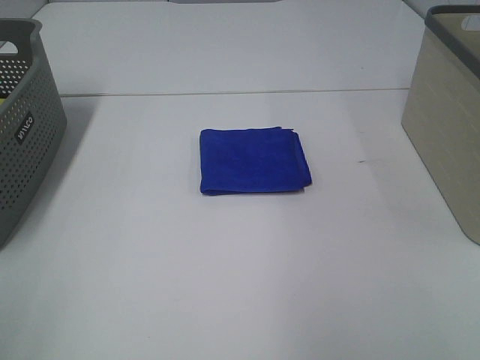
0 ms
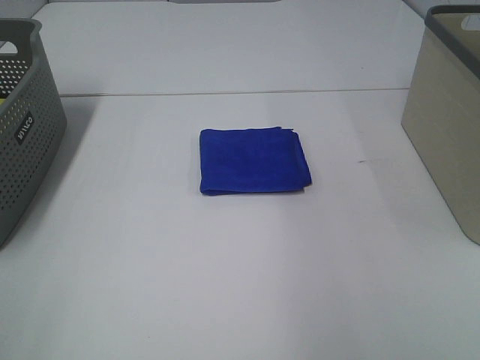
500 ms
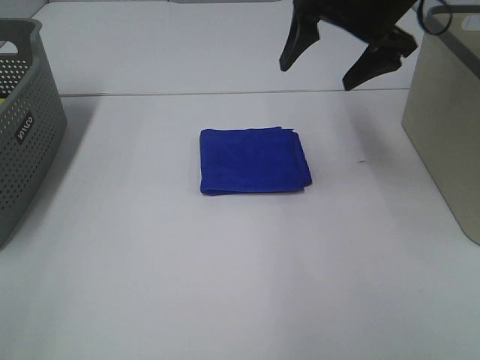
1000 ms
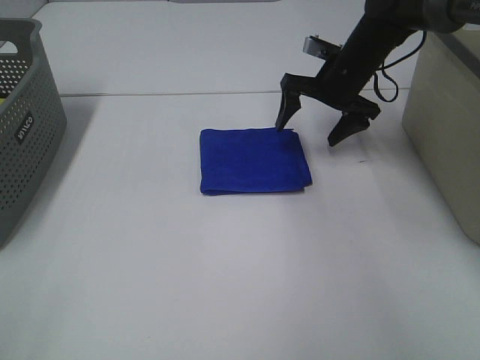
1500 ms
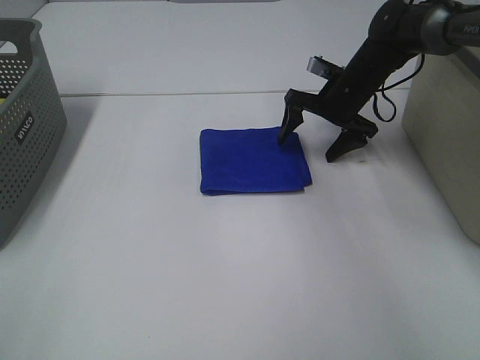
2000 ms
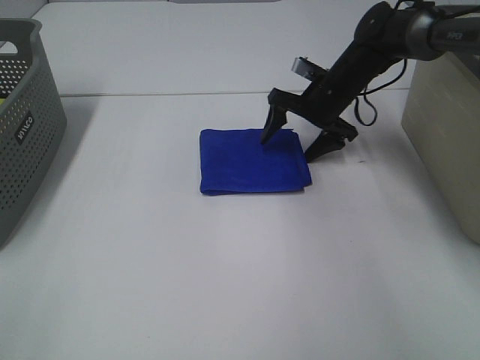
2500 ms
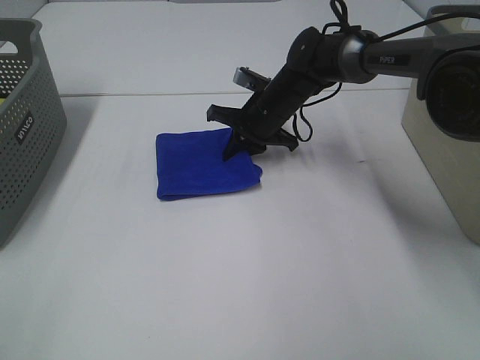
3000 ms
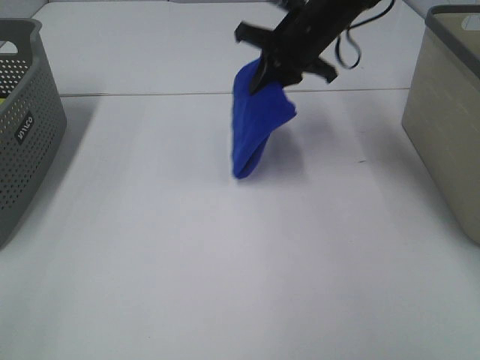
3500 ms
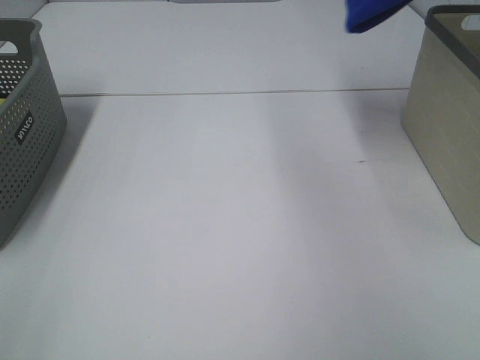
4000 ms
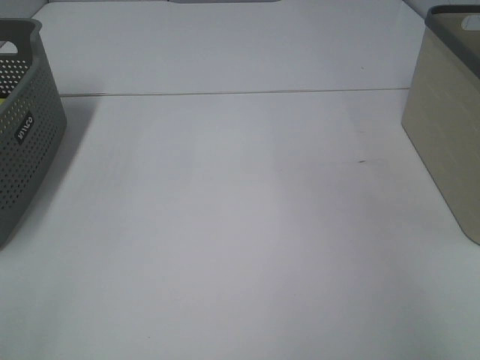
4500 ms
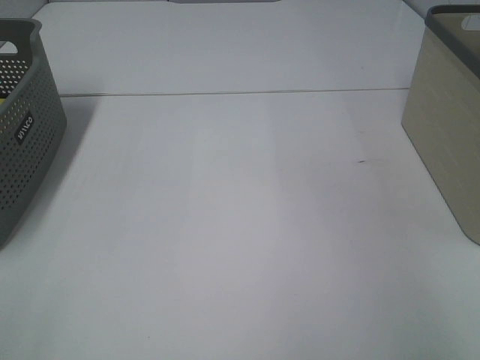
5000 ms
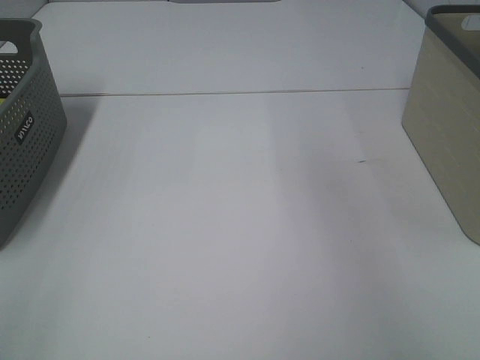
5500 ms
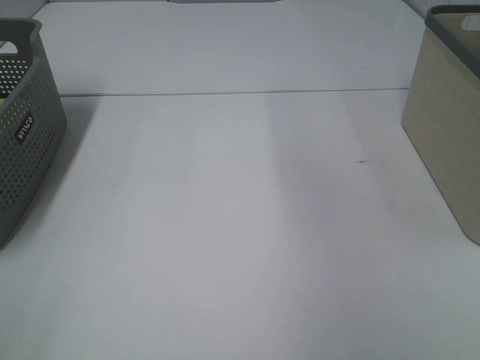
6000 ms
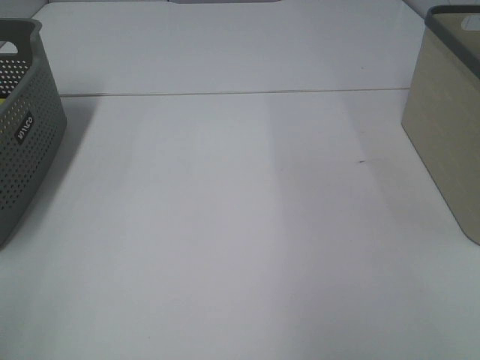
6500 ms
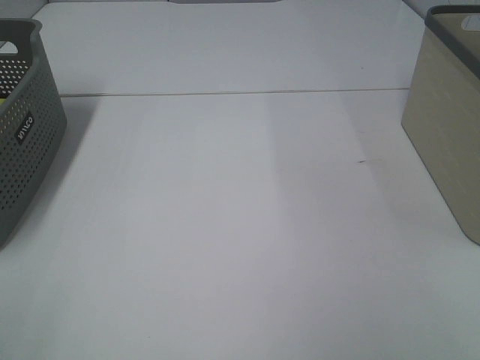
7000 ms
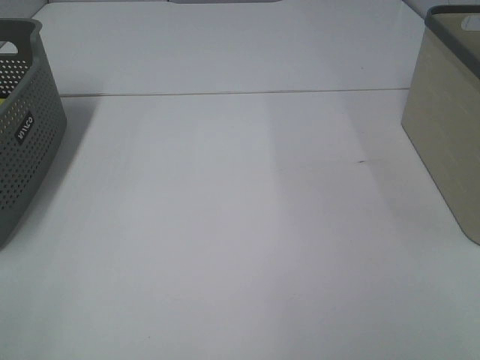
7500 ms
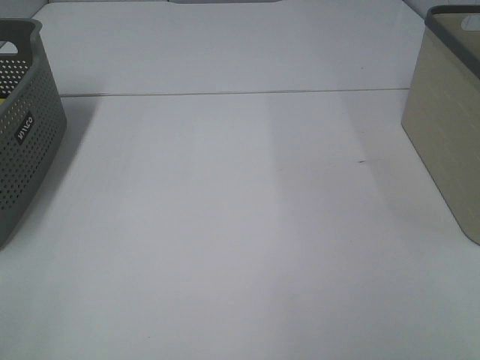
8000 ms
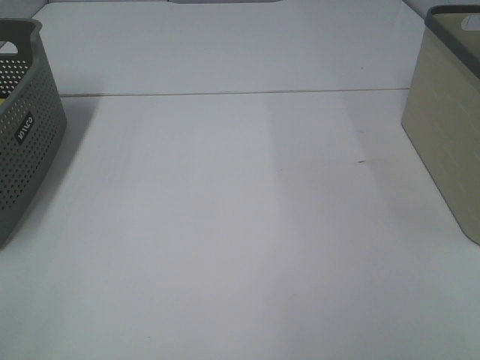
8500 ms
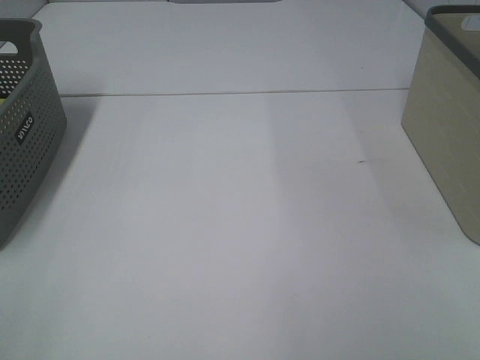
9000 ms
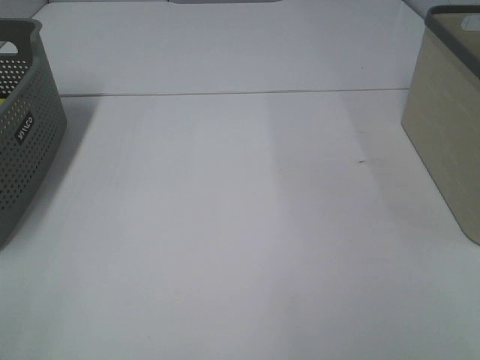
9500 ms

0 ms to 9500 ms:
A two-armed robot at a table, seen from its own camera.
Step, 0 ms to 3000 ms: Right hand: grab the folded blue towel.
Step, 3500 ms to 5000 ms: Right hand: place the blue towel in right basket.
0 ms to 2000 ms: The right gripper travels forward and downward by roughly 50 cm.
2000 ms to 4000 ms: The right gripper heads upward, covering roughly 30 cm, and closes up.
4000 ms to 5500 ms: The right gripper travels to the right and back again, roughly 15 cm each way, and opens up.
7500 ms to 9500 ms: The two grippers keep their place.

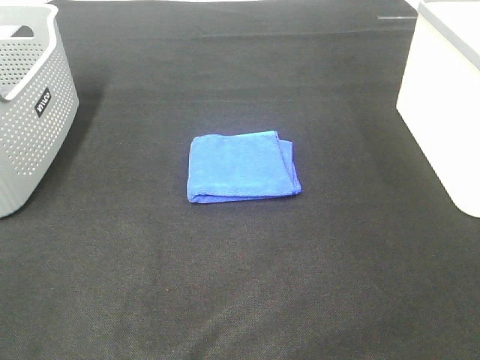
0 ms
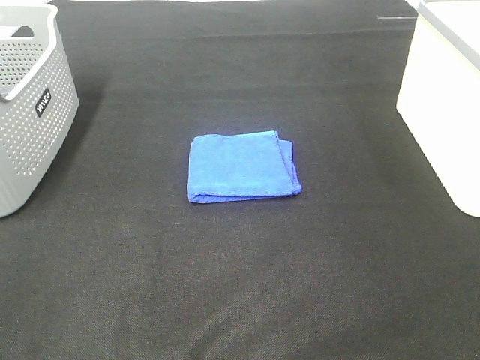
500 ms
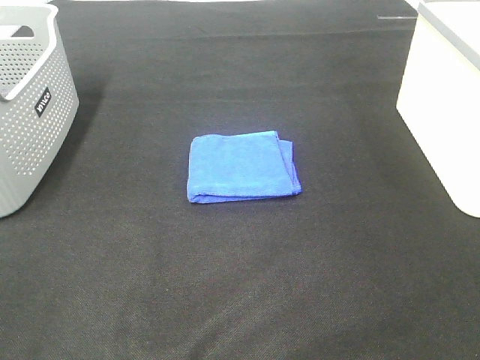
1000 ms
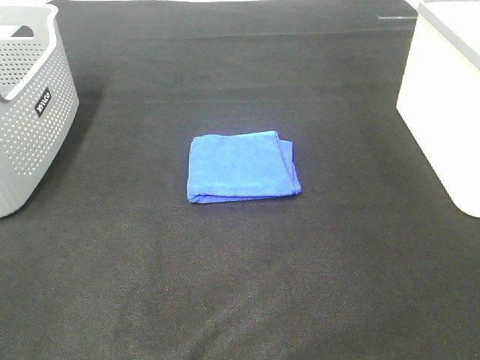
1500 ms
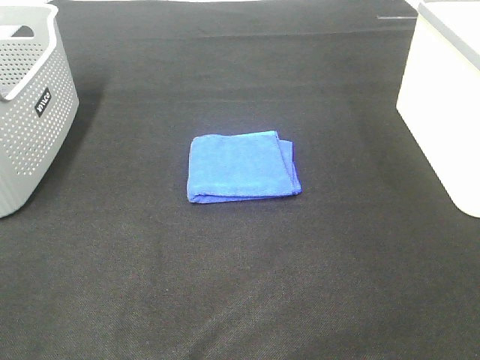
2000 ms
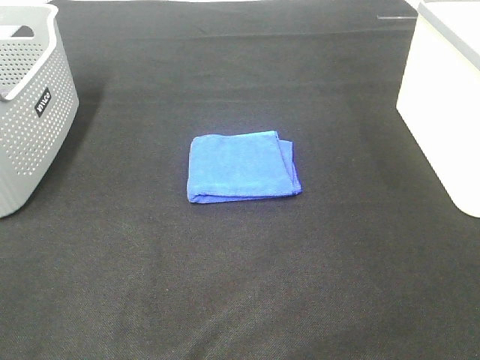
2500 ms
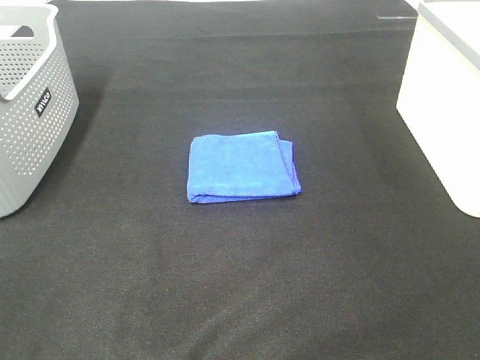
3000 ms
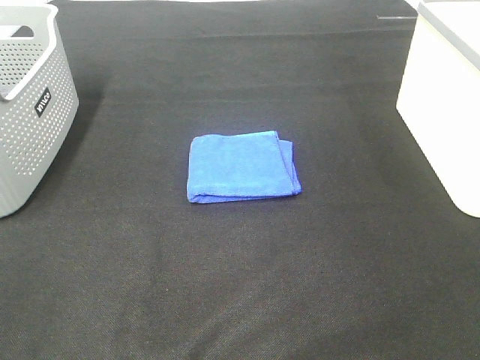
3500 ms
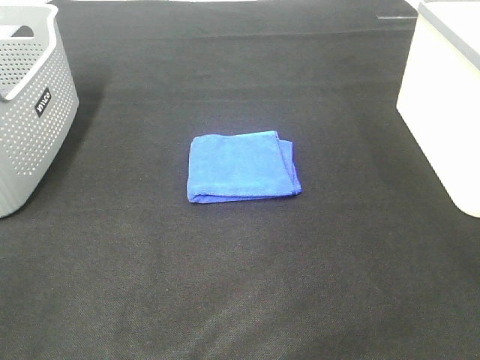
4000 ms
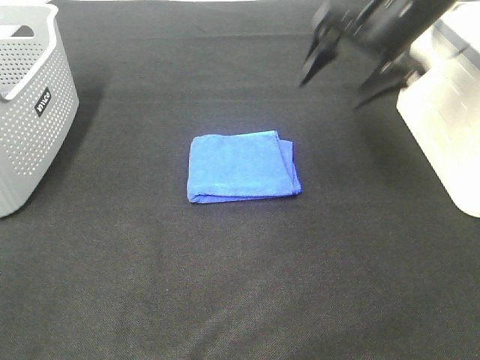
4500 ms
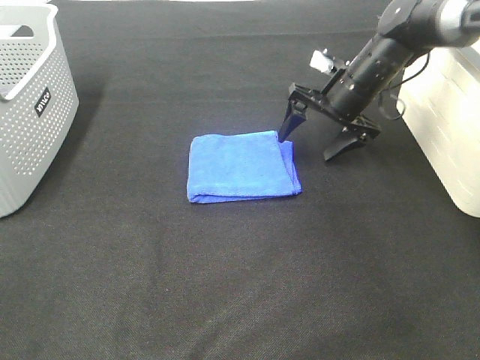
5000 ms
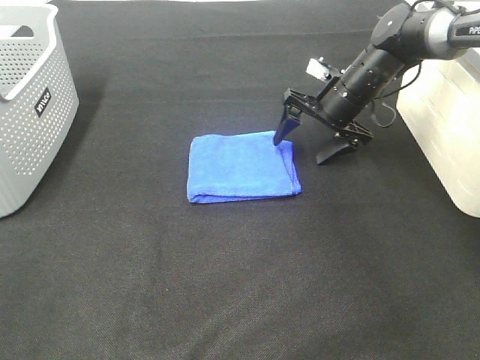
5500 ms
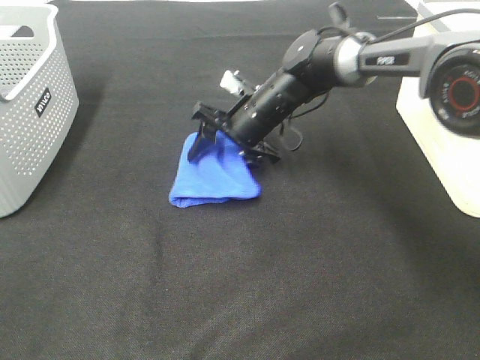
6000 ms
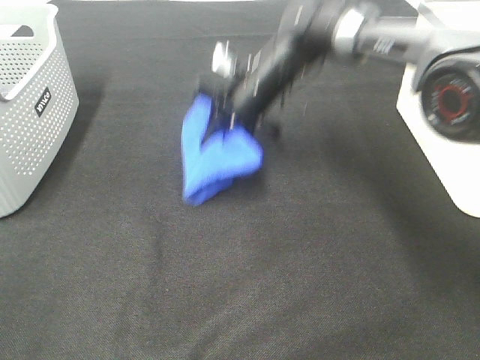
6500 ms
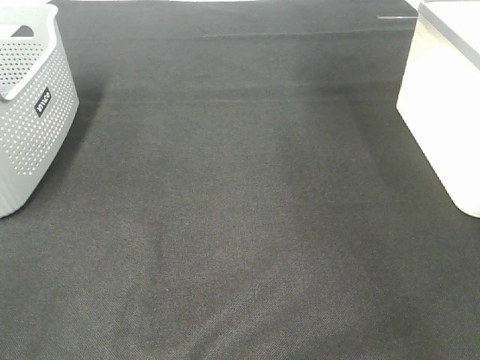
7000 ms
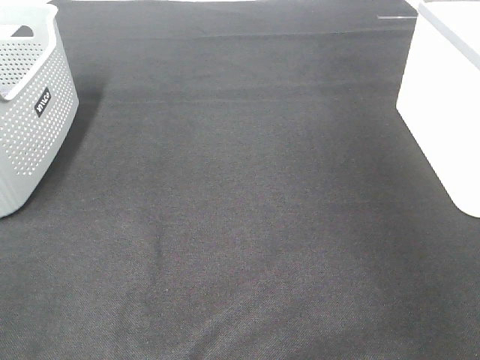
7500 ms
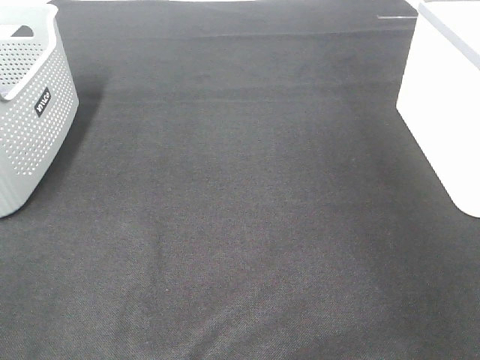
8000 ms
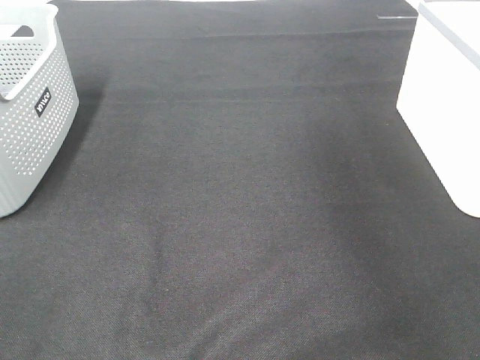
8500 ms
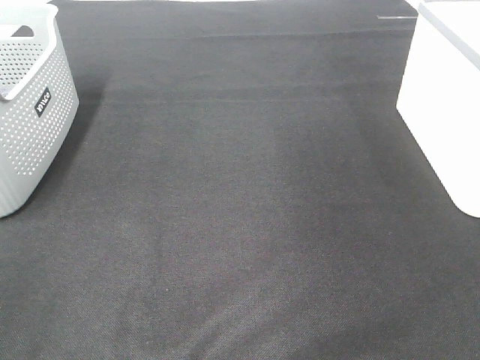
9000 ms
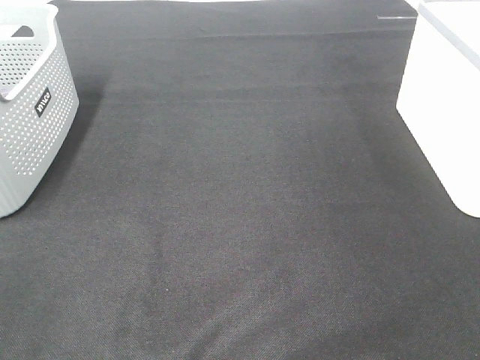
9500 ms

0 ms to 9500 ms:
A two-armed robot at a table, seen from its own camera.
Step, 0 ms to 6000 ms: Right hand: grab the folded blue towel.
Step, 6500 ms to 8000 ms: Right hand: place the blue towel in right basket.
0 ms to 2000 ms: Neither gripper changes place.
4000 ms to 5500 ms: The right gripper shifts some 40 cm downward and forward.
5500 ms to 7500 ms: The right gripper moves upward and to the right, roughly 40 cm, and closes its fingers.

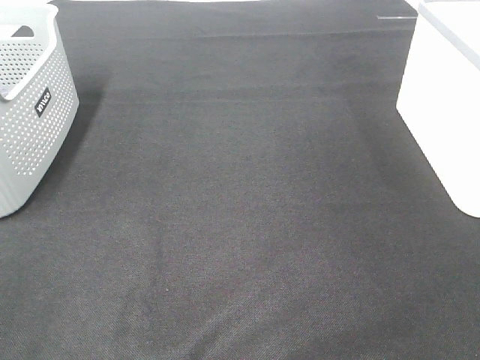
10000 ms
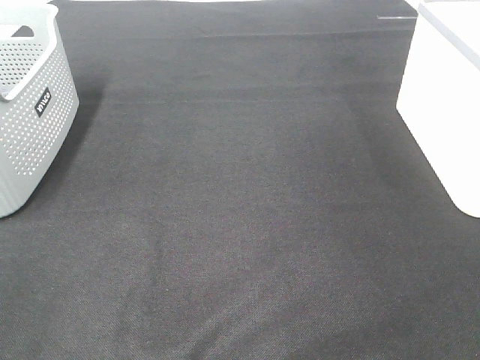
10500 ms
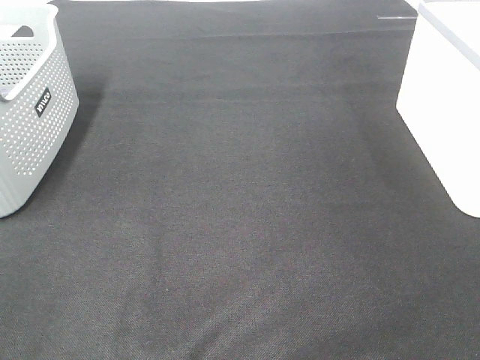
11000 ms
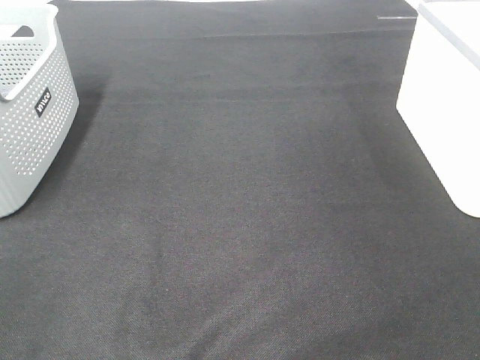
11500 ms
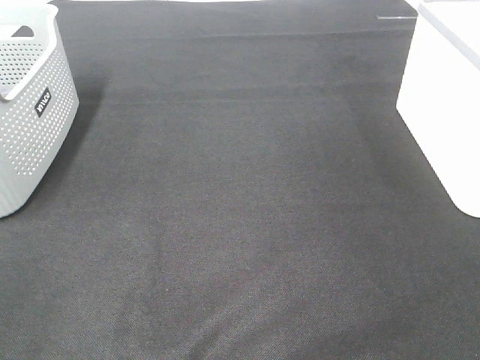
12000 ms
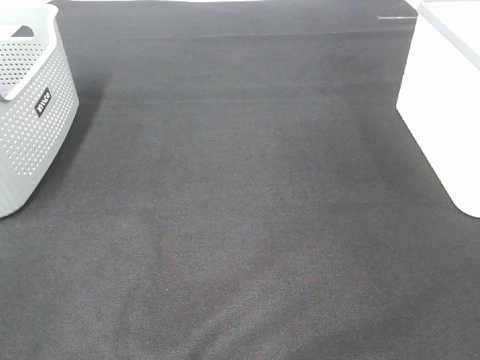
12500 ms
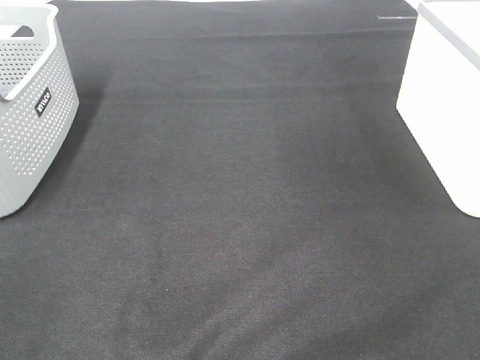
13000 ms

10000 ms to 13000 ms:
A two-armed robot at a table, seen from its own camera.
10000 ms to 13000 ms: Both grippers stay about where they are.

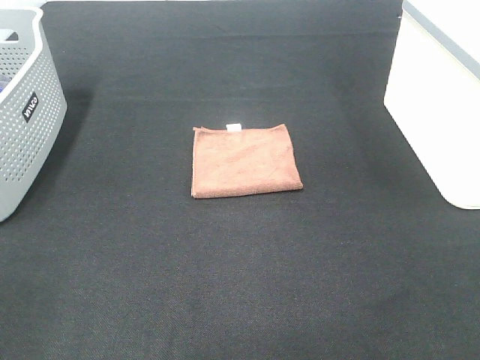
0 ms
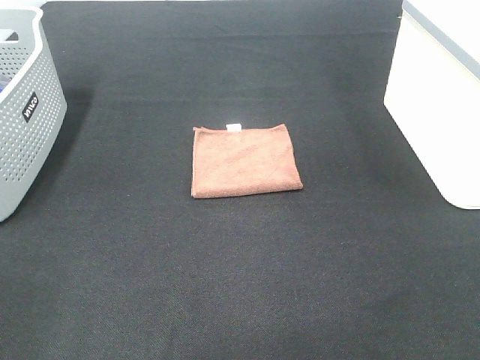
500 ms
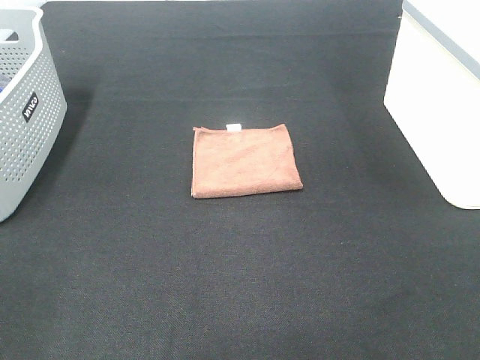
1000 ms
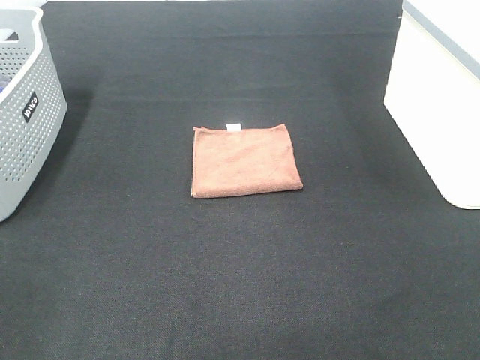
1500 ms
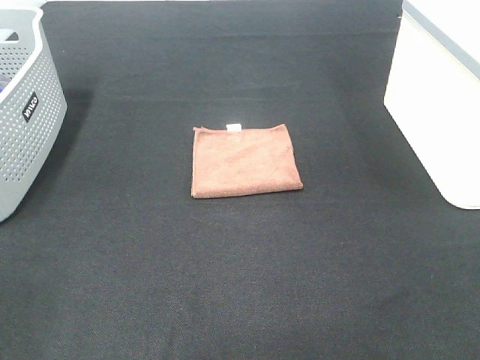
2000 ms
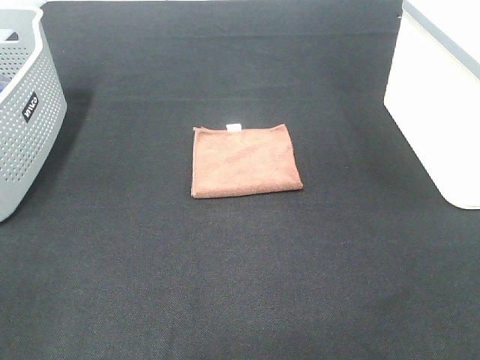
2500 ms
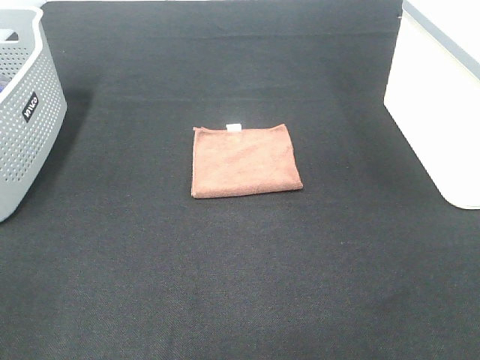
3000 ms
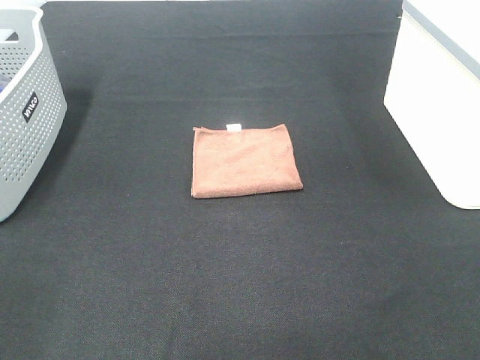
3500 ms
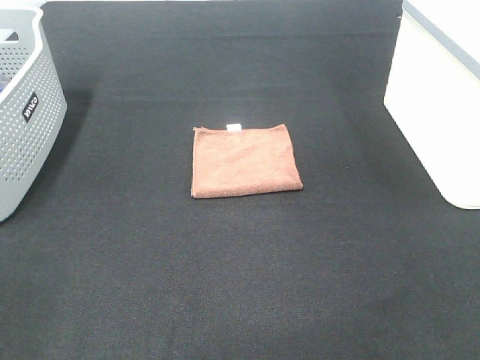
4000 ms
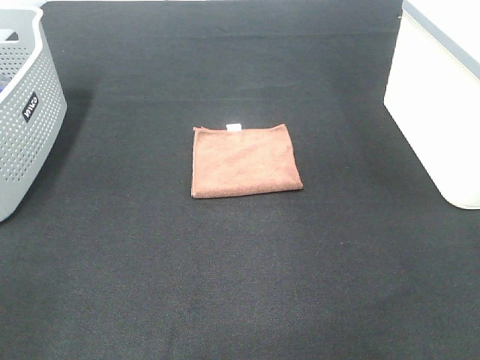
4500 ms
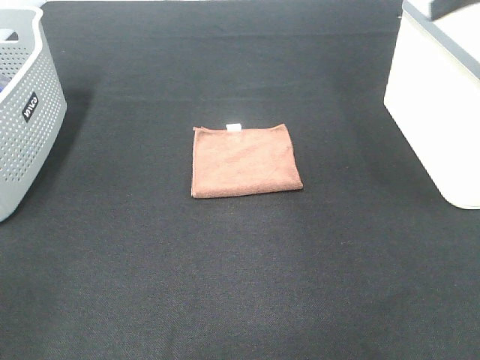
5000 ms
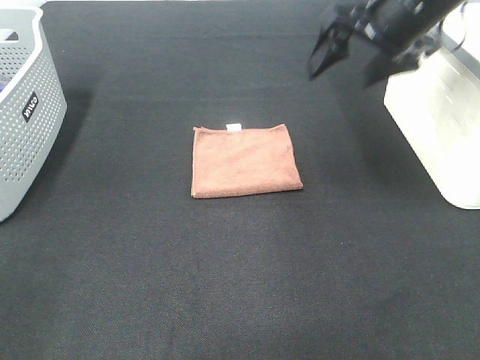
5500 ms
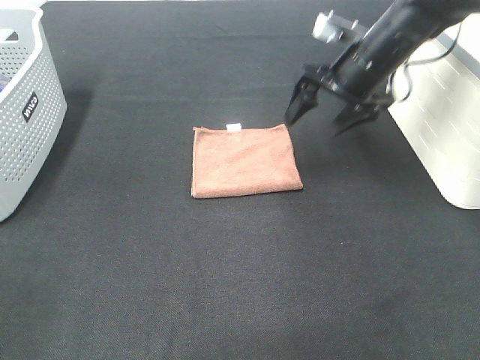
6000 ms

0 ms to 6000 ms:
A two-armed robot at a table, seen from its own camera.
0 ms to 2000 ms: The two grippers keep their place.
4000 ms to 6000 ms: The right gripper moves forward, roughly 40 cm.
